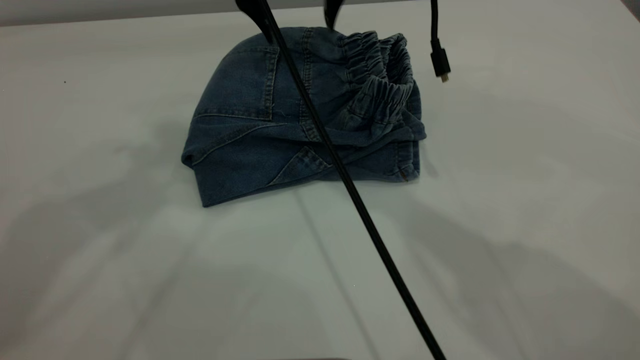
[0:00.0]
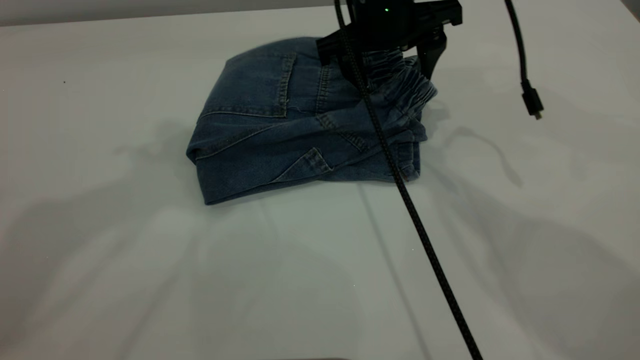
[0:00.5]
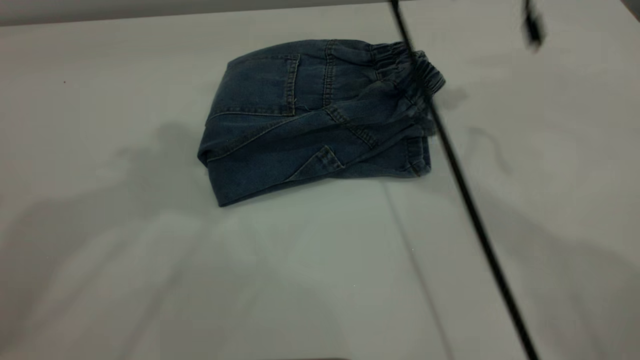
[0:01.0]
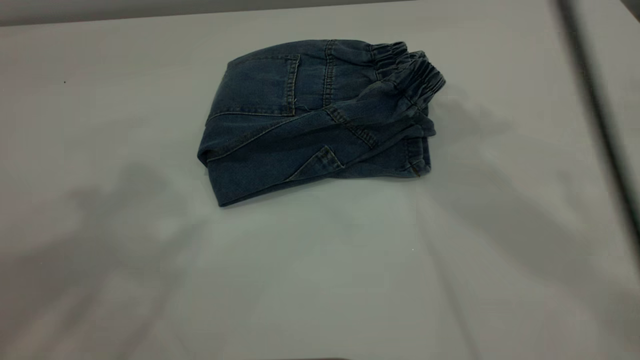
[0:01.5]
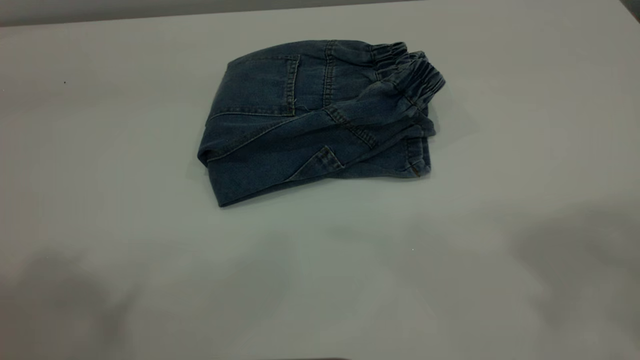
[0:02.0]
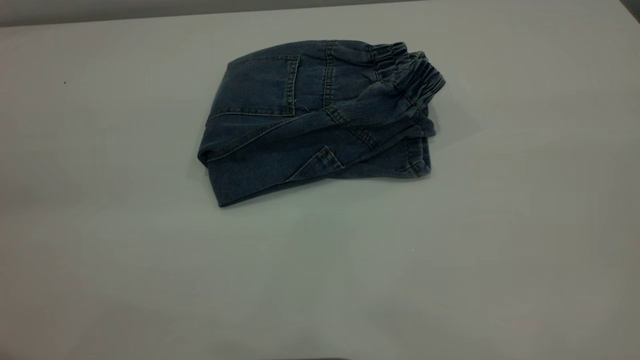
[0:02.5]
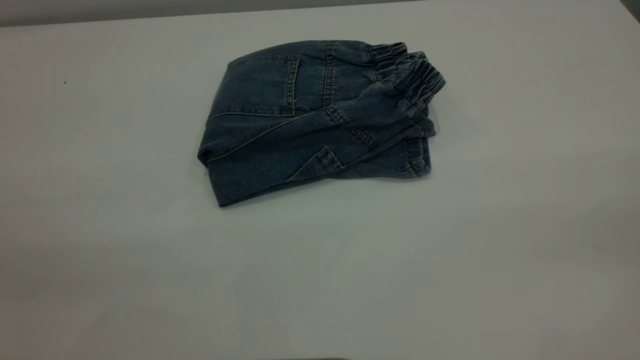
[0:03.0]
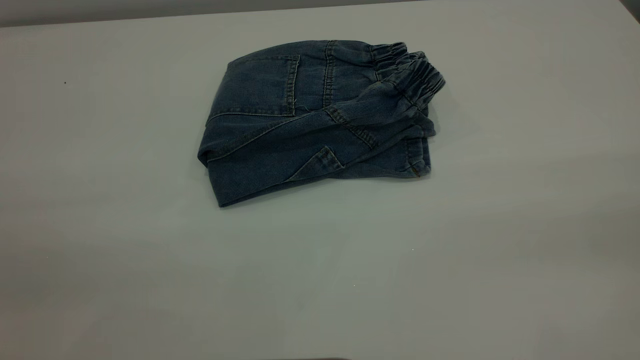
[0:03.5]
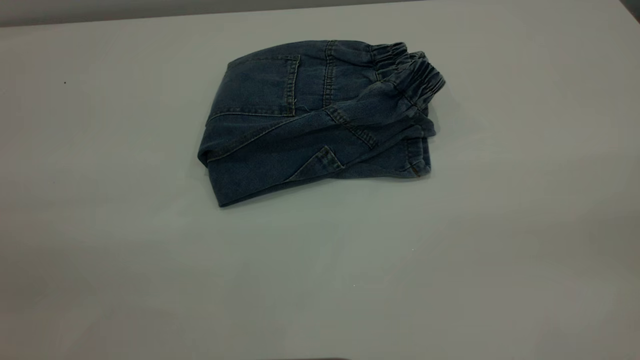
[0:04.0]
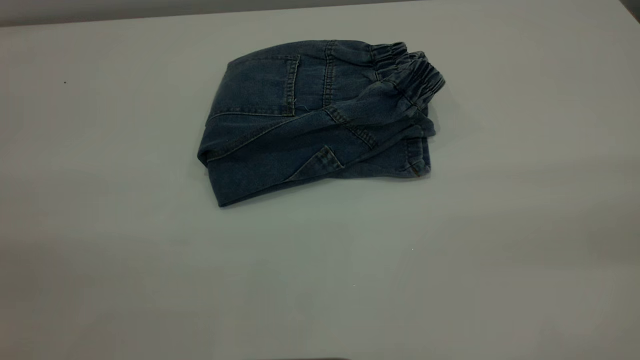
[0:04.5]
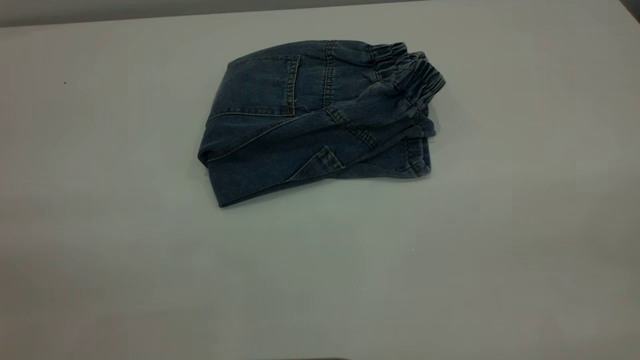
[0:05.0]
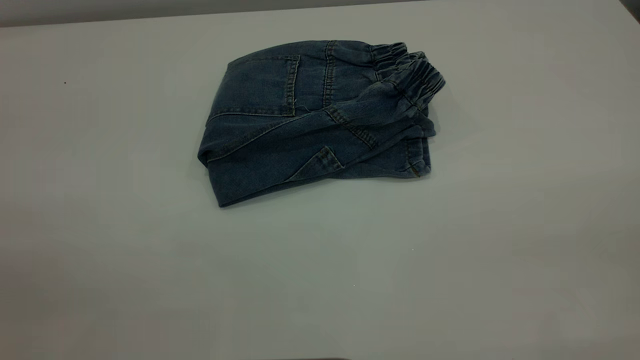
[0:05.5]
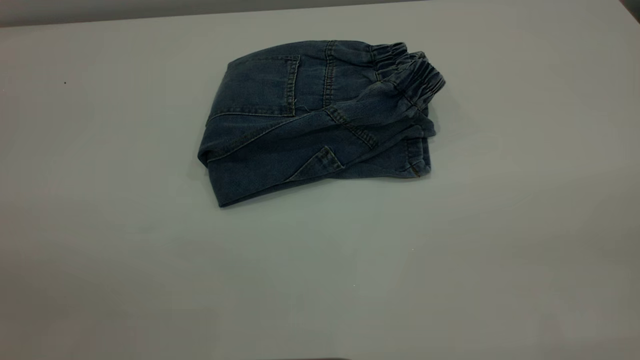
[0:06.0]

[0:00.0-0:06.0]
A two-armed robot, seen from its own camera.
0:00.0 to 0:02.0: The left gripper moves backward, some 15 cm. Meanwhile the right gripper moves upward, backward and to the right, some 40 cm.
